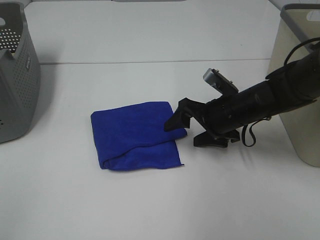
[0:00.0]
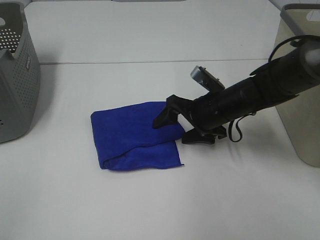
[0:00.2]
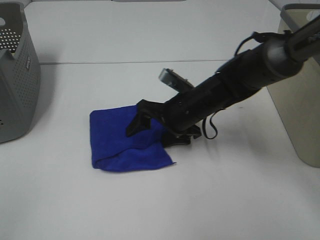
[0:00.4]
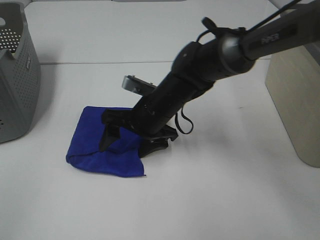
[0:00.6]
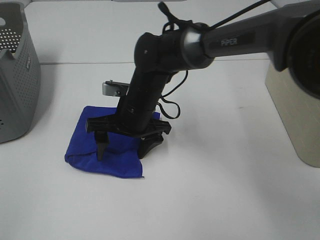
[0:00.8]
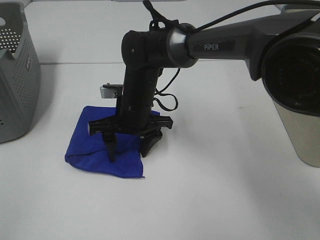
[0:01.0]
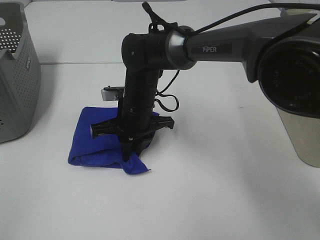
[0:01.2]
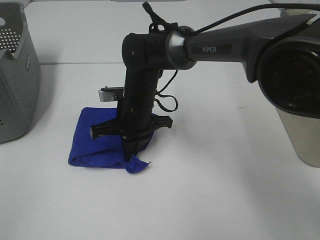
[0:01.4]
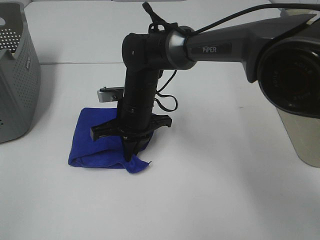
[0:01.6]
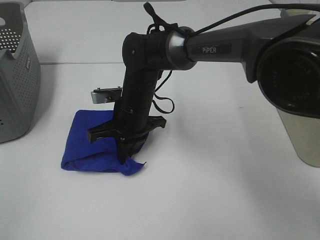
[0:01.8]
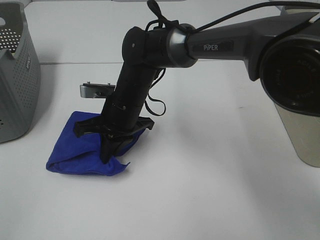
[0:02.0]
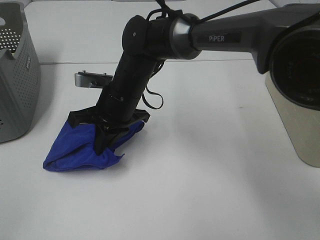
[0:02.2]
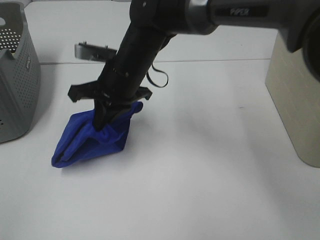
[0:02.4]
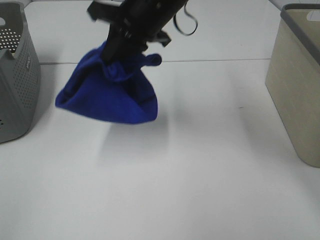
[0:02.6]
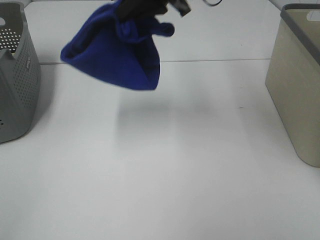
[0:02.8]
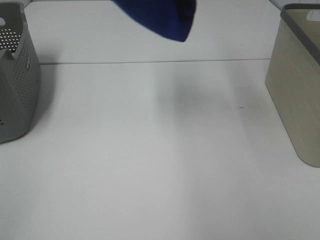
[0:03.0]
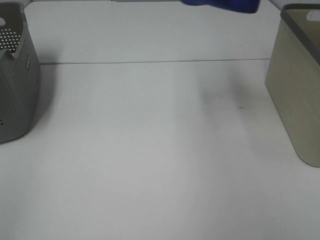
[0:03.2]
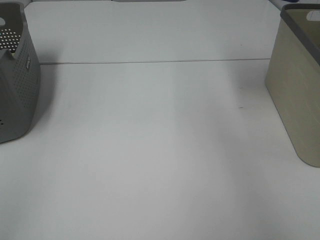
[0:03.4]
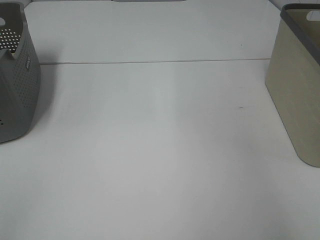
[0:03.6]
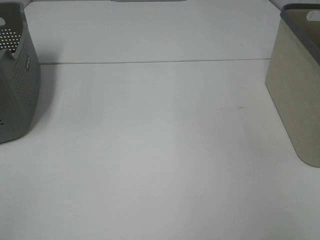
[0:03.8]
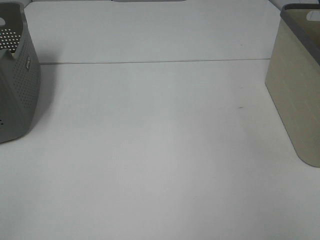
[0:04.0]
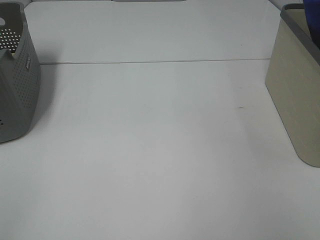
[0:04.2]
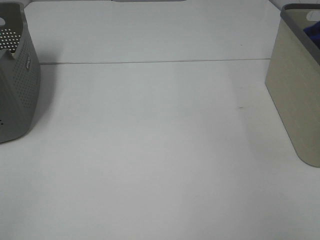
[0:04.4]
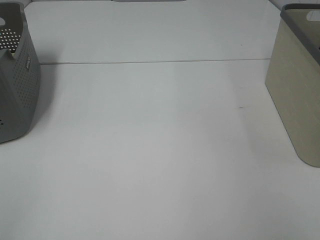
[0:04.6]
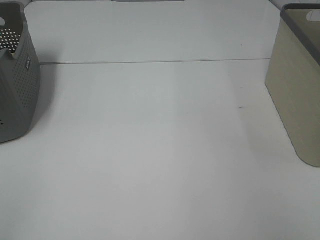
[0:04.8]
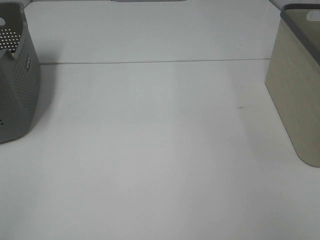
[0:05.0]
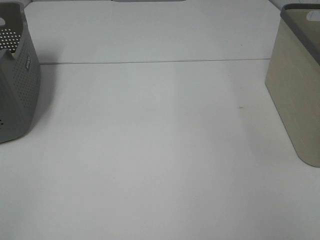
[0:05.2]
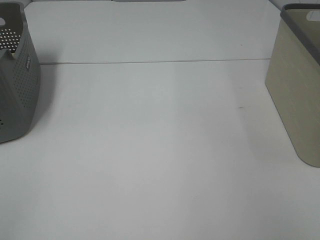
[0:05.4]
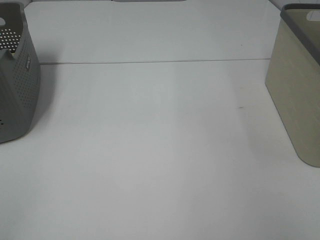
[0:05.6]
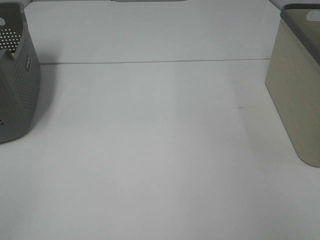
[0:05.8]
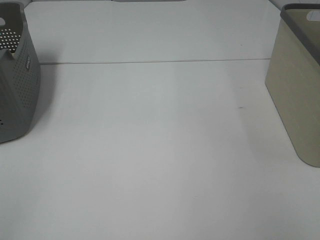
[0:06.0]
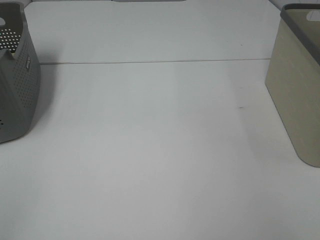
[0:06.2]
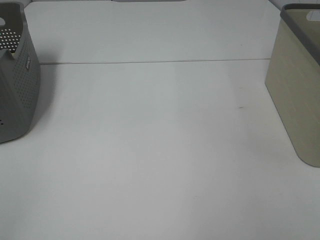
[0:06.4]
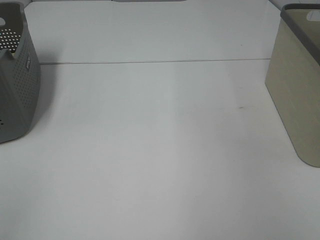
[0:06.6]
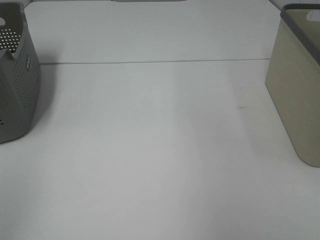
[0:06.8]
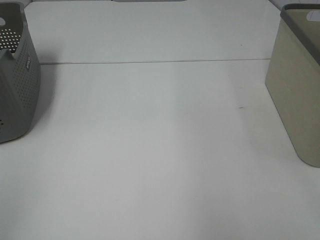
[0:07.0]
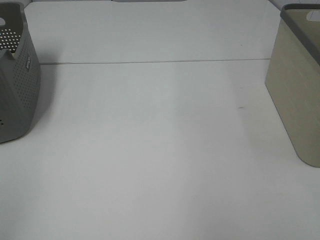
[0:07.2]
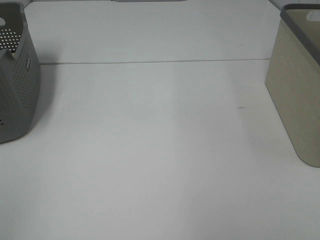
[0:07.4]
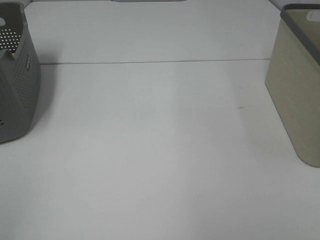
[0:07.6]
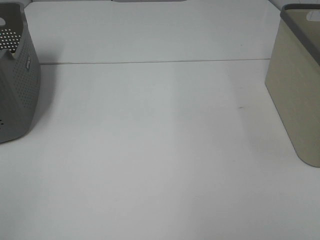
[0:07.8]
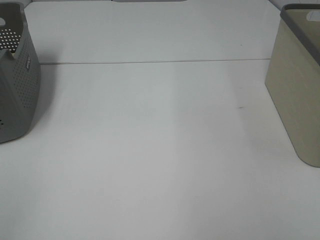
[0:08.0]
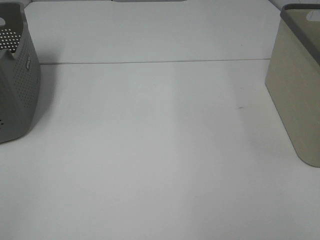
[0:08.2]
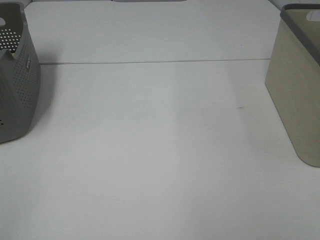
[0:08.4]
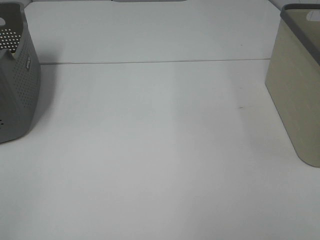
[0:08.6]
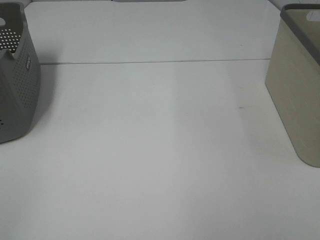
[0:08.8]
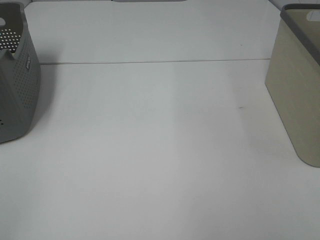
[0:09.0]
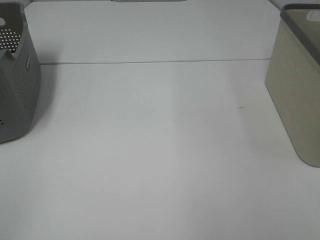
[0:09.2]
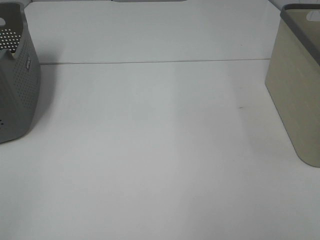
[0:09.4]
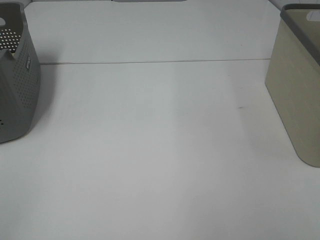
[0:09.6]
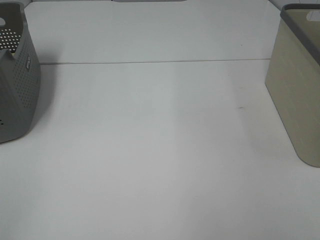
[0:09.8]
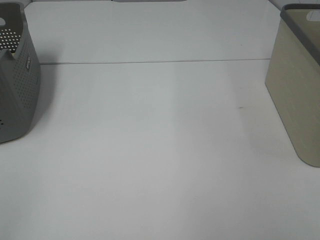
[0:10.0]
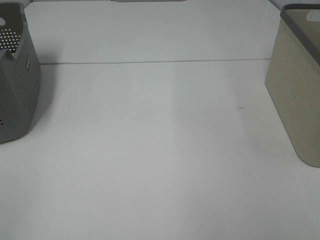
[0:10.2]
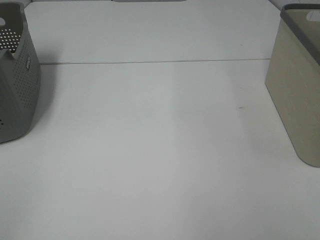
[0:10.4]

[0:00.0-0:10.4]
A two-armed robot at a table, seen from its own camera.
Step, 0:01.4 to 0:06.0: Right hand: place the blue towel in right basket.
0:00.0 to 0:01.4: The right gripper heads to the left, covering approximately 20 cm, and closes its fingers.
0:01.4 to 0:03.0: The right gripper is displaced upward and to the right by some 35 cm.
0:03.0 to 0:04.4: The right gripper heads to the right, covering roughly 30 cm.
0:09.0 to 0:10.4: Neither gripper changes place.

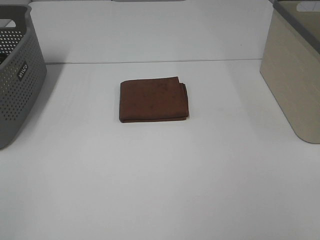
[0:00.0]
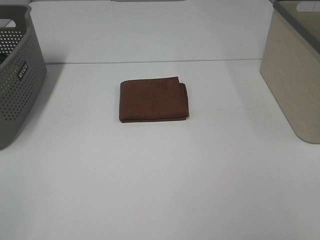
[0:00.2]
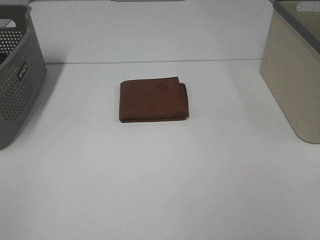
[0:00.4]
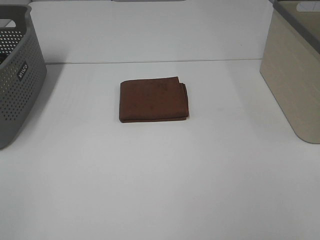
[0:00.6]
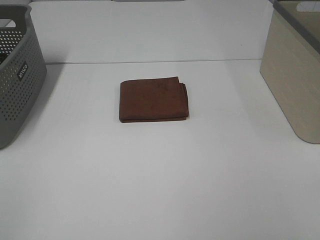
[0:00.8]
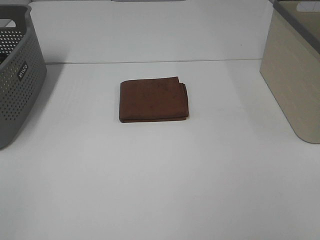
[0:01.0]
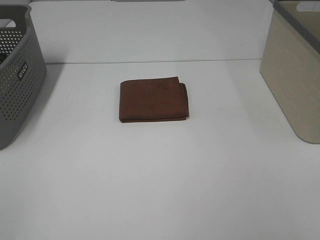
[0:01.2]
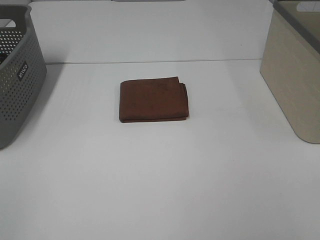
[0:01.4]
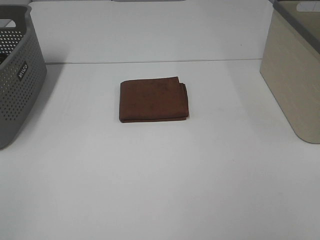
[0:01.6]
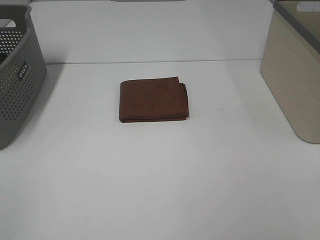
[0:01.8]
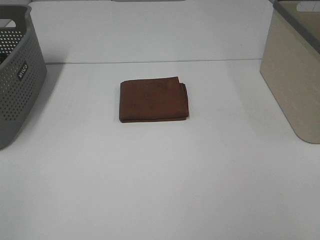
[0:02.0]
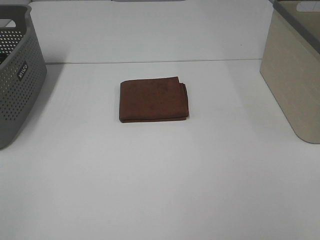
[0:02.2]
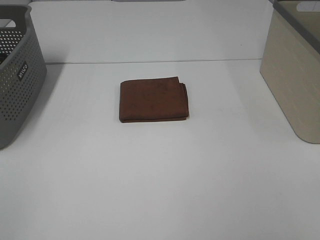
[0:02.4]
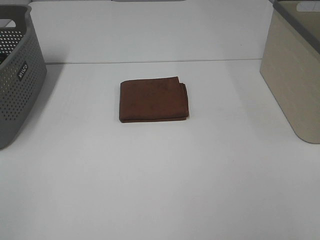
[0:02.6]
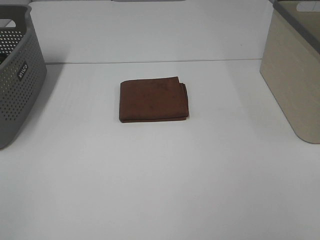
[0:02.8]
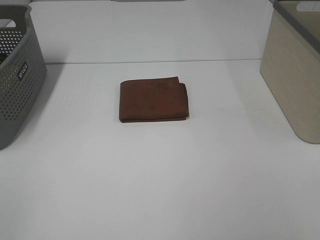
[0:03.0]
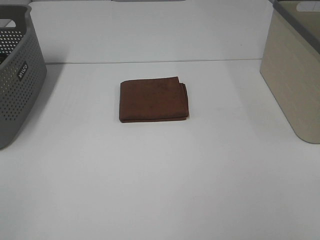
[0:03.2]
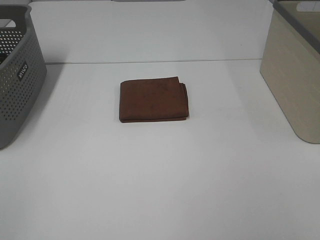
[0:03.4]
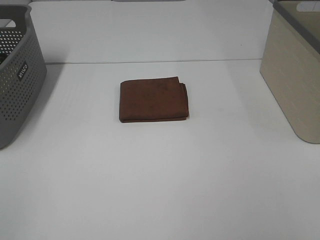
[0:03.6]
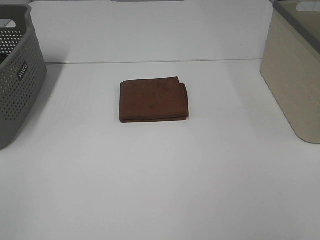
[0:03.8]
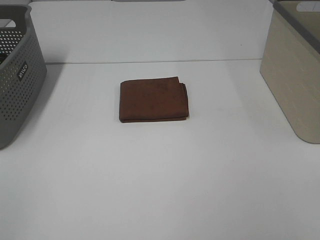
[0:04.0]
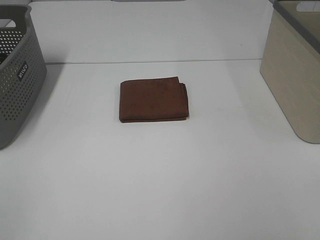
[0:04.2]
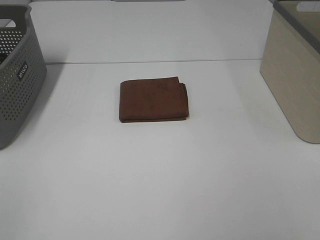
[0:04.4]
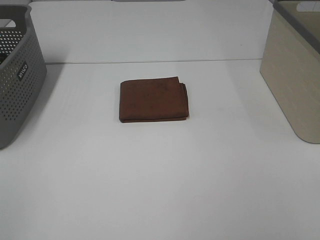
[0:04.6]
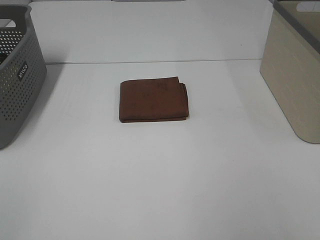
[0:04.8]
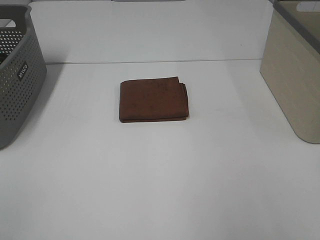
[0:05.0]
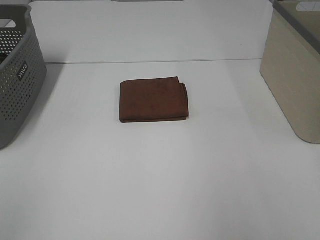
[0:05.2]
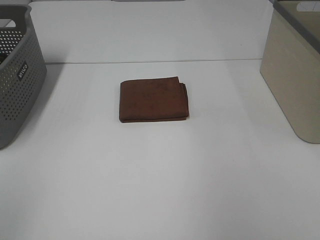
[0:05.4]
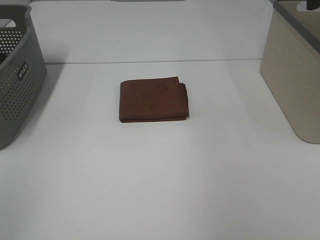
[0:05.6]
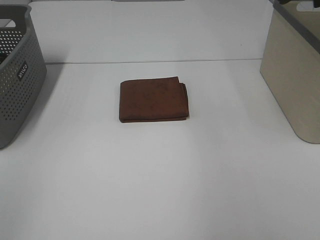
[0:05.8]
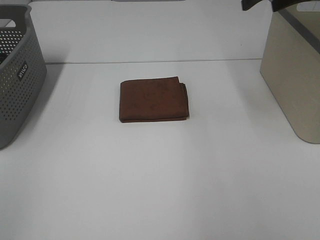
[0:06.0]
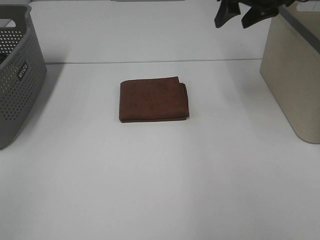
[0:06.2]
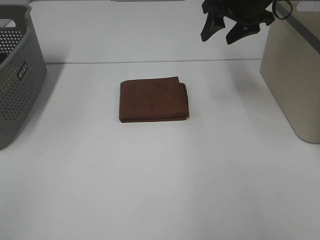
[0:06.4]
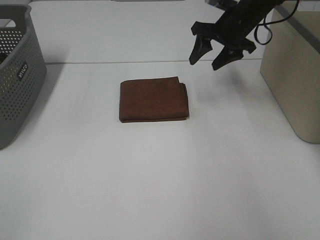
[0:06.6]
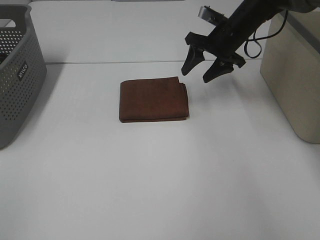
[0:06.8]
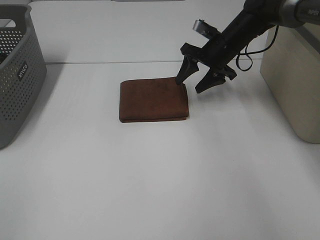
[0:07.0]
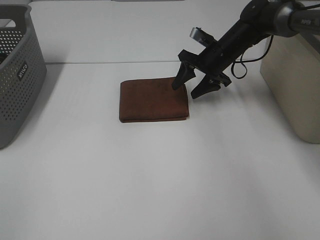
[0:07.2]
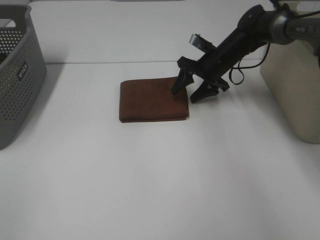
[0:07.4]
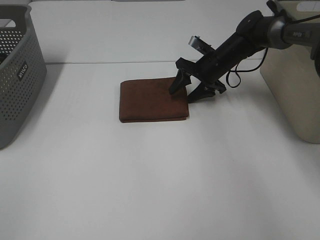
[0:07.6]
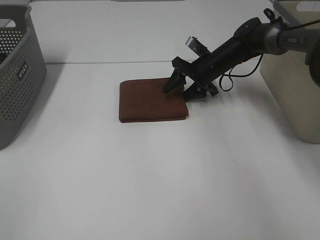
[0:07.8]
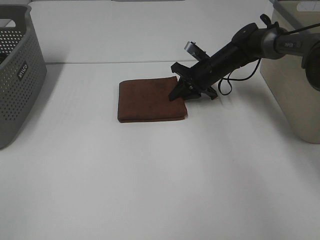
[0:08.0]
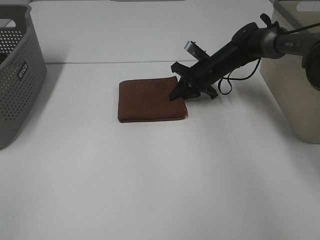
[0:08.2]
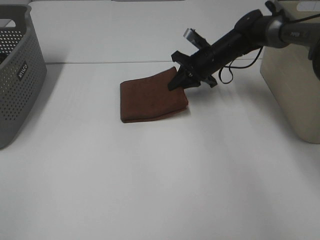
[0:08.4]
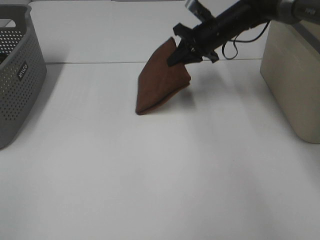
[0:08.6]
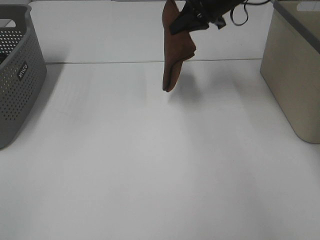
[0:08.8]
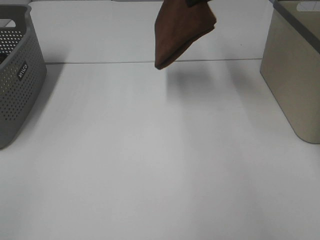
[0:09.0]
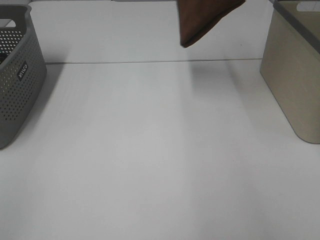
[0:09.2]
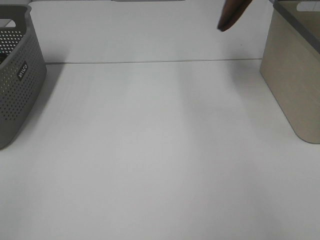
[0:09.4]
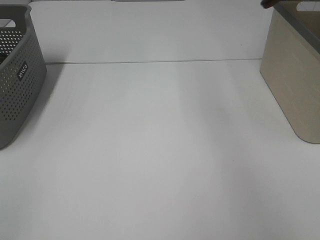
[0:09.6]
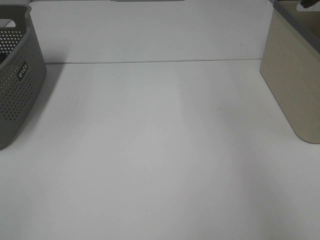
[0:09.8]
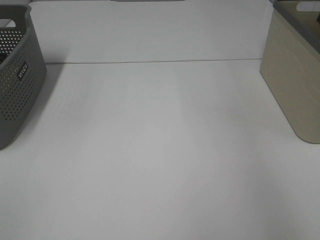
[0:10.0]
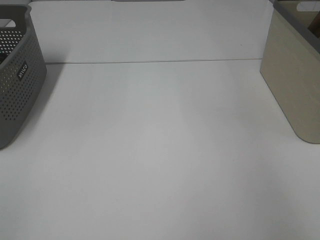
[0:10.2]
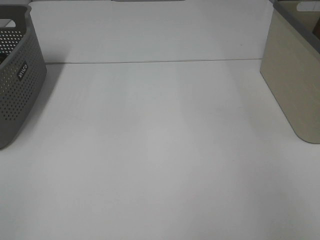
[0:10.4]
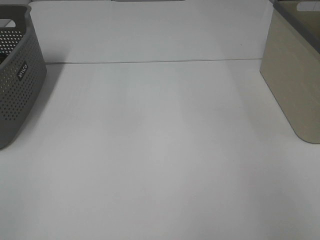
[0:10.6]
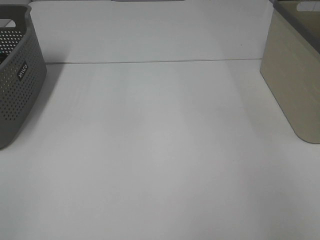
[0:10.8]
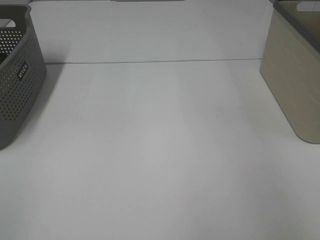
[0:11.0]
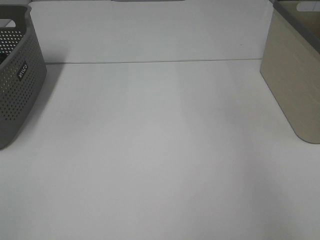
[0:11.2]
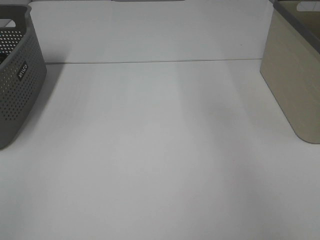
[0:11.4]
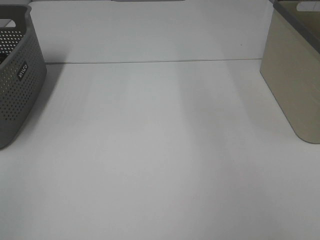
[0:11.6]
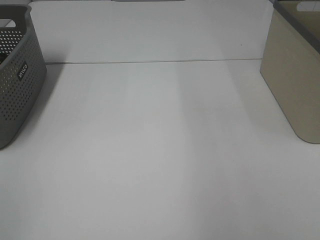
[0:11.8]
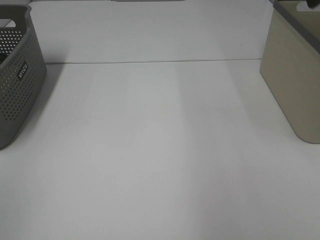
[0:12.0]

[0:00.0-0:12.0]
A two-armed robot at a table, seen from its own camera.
Step, 0:00.0 to 0:08.2: Right hand: grab the folded brown towel.
Step, 0:08.4 to 0:10.6: Right hand: place the brown towel in right basket.
0:00.0 to 0:04.4: The two grippers keep their place.
0:04.4 to 0:06.0: The right gripper is displaced forward by some 40 cm.
0:06.0 to 0:07.6: The right gripper travels downward by roughly 25 cm.
0:07.6 to 0:09.0: The right gripper is displaced upward by roughly 25 cm, and closes up.
0:09.0 to 0:10.4: The right gripper travels to the right by some 25 cm.
